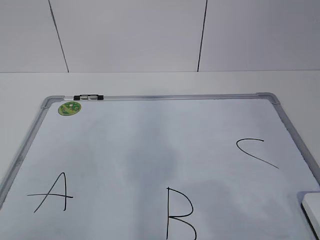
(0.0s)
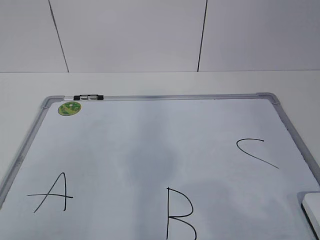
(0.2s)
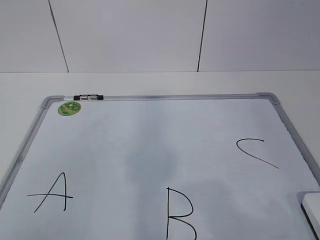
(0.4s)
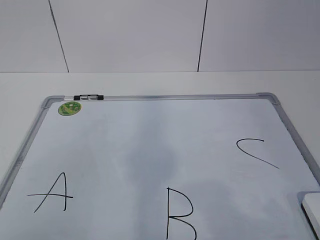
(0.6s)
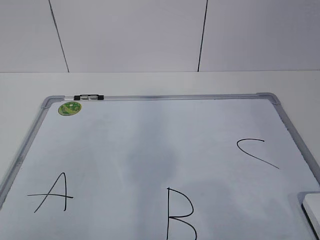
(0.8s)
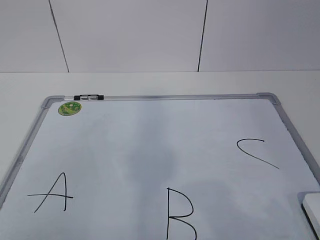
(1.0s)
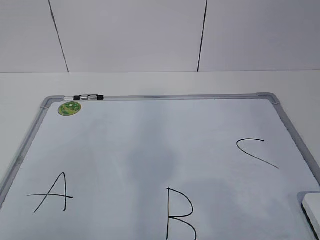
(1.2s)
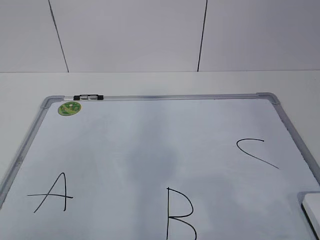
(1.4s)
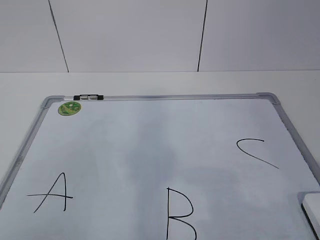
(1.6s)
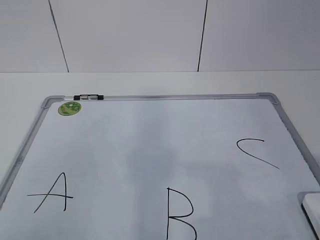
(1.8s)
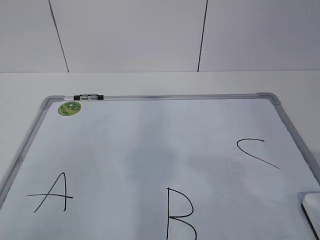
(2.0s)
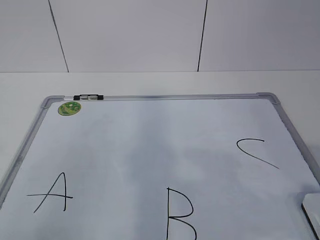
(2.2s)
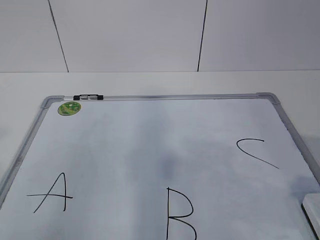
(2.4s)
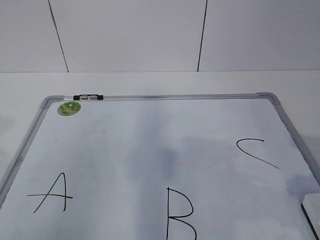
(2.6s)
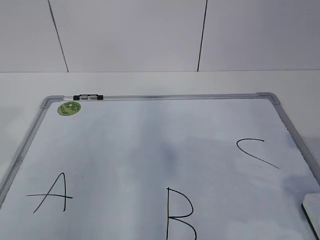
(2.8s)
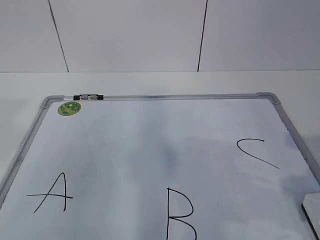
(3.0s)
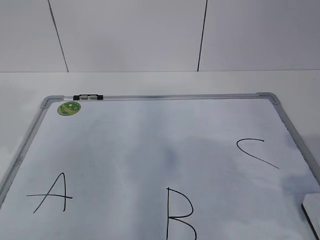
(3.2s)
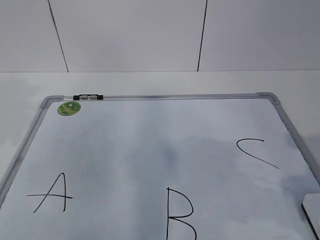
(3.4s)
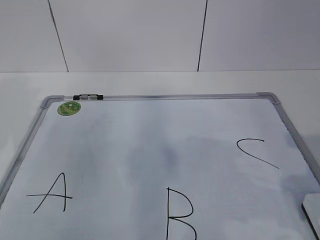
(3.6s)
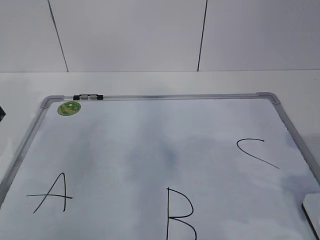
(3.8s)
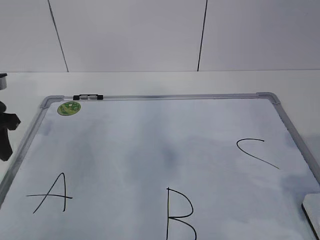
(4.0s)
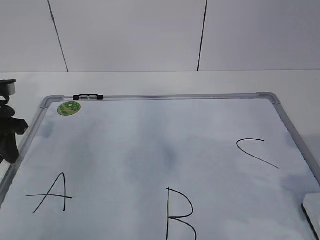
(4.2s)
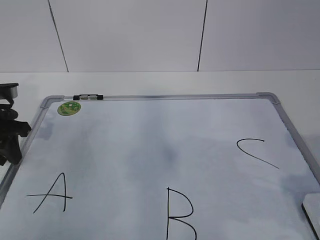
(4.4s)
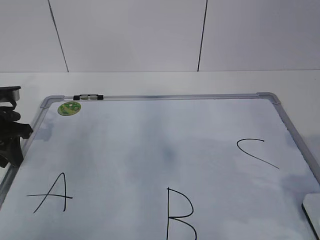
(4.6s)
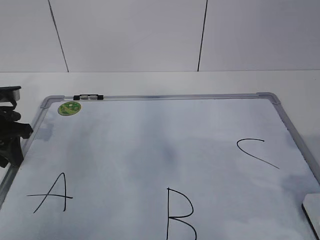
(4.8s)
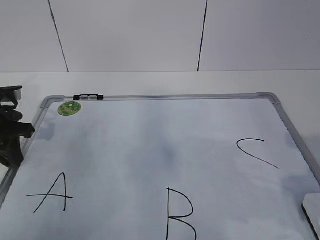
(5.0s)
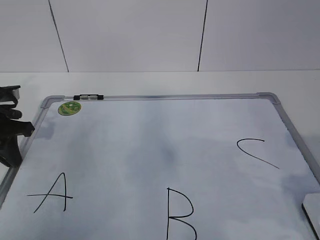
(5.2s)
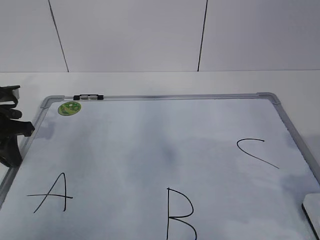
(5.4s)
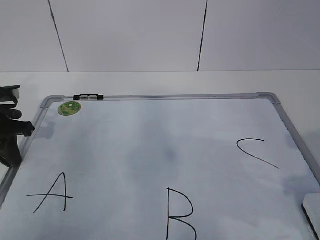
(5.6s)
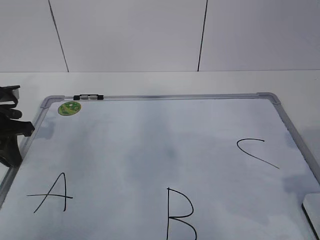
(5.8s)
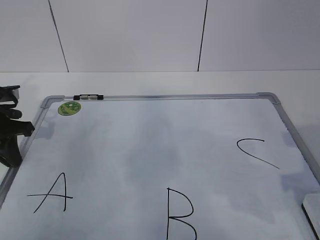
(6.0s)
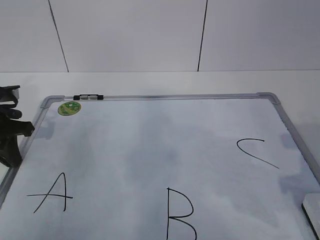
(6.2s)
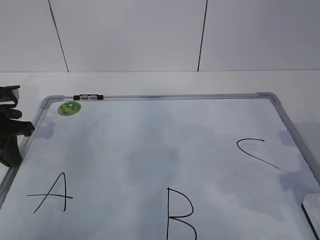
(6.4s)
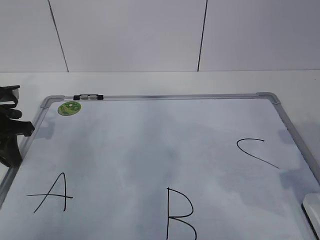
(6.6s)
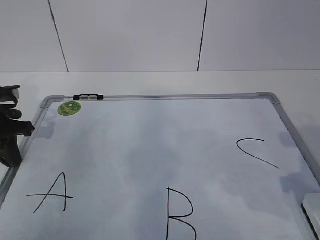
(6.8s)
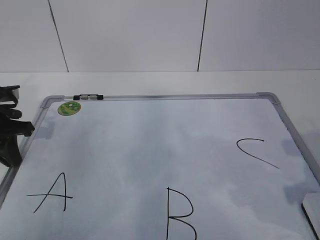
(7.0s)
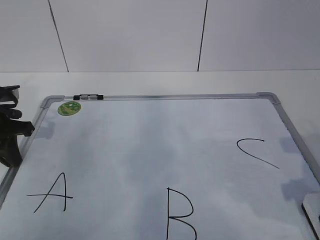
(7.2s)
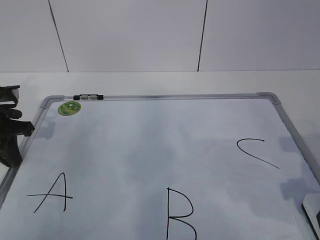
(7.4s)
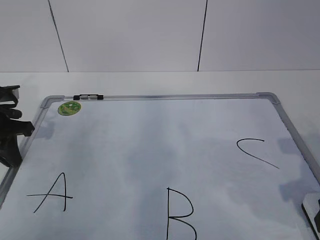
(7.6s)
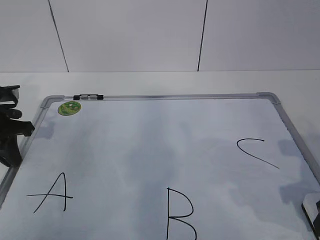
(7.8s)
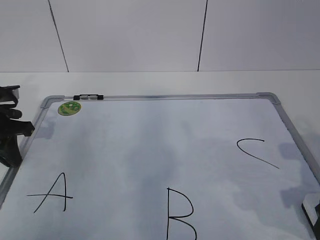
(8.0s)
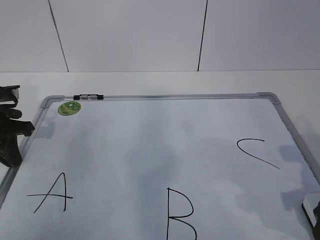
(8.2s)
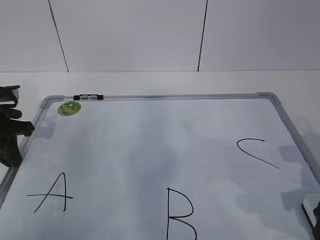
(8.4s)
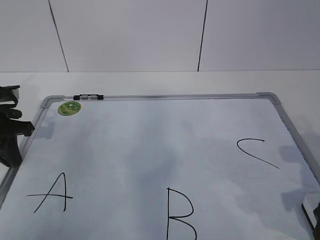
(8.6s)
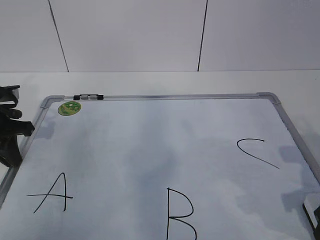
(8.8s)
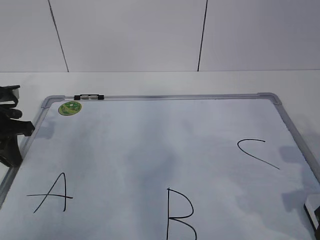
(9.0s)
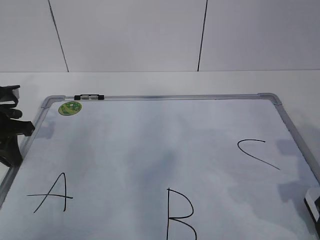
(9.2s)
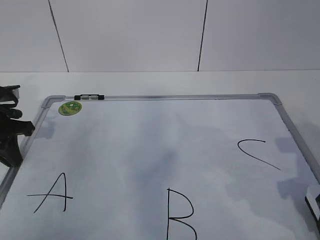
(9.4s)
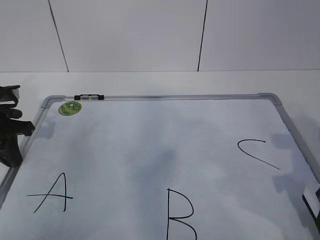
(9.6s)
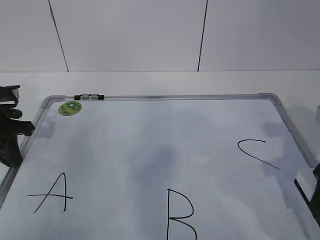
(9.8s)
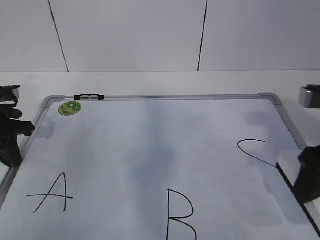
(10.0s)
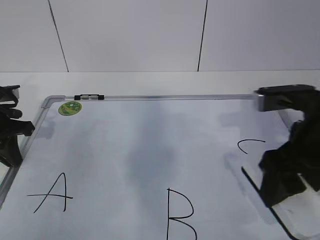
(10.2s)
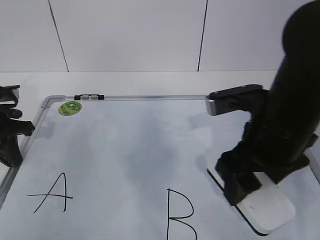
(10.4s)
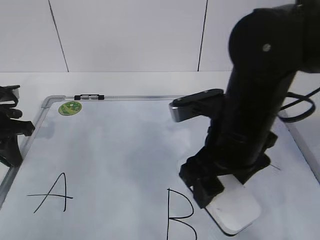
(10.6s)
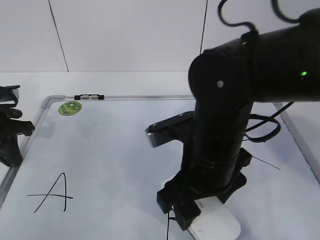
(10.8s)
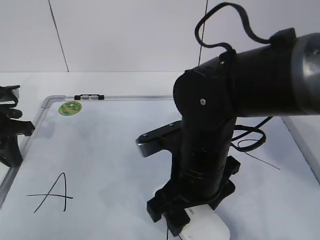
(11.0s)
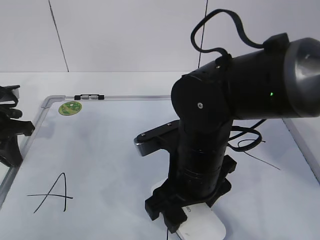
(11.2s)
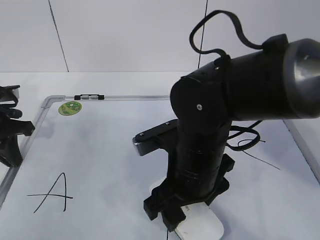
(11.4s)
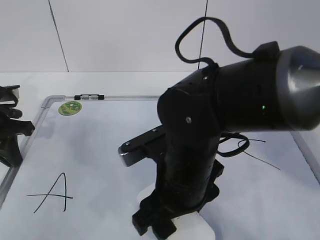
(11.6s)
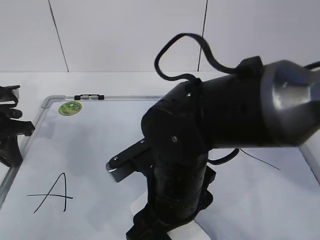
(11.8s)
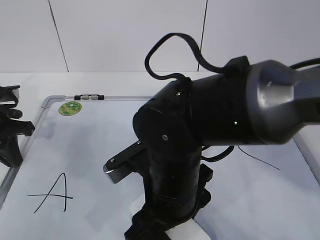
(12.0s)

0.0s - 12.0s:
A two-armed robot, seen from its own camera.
Task of the whole recording: pick up the eraser on the blackboard and erase the letter "B".
Step, 0.0s - 4.2s: Hold the drawing board steady with your left hand.
1.6s - 3.0s: The right gripper heads forward, covering about 10 cm.
3.0s - 4.4s: The left gripper moves forward and downward, roughly 20 cm.
4.4s - 6.0s: The left gripper closes.
9.0s - 10.4s: The right gripper heads to the left, upward and forward, covering roughly 15 cm.
10.4s - 12.0s: The right gripper travels to the left and downward by roughly 15 cm.

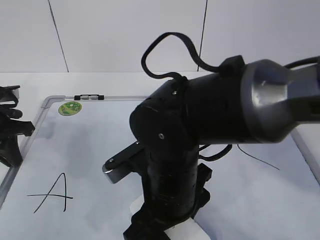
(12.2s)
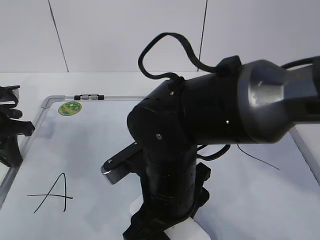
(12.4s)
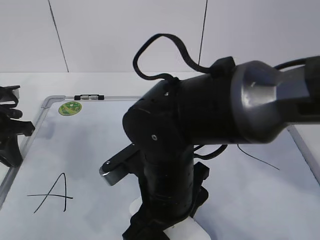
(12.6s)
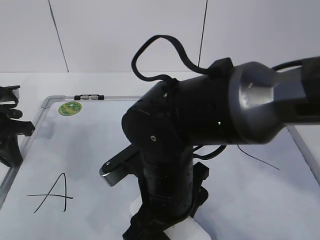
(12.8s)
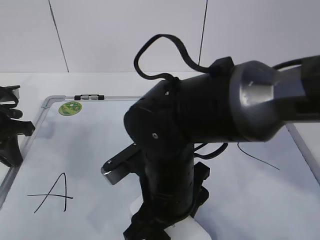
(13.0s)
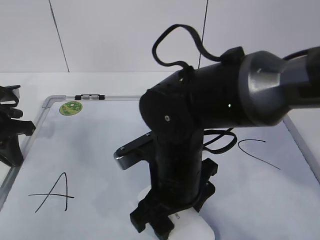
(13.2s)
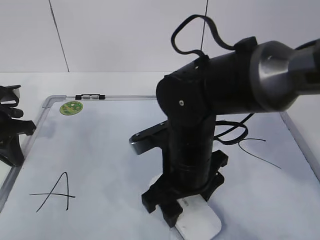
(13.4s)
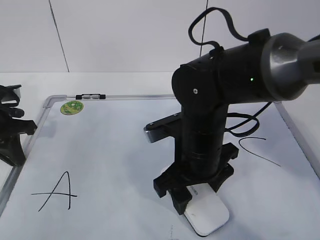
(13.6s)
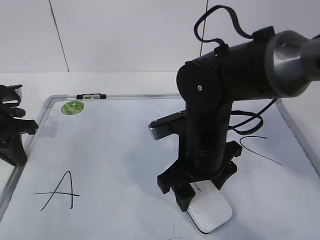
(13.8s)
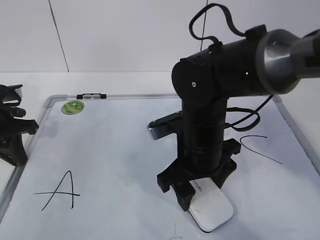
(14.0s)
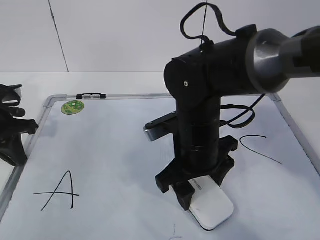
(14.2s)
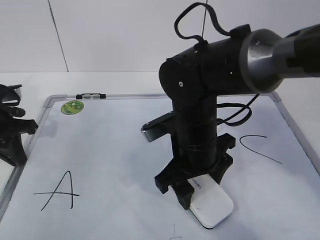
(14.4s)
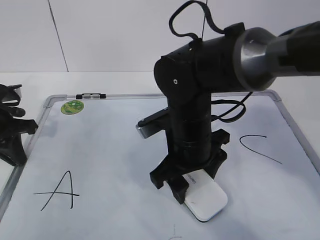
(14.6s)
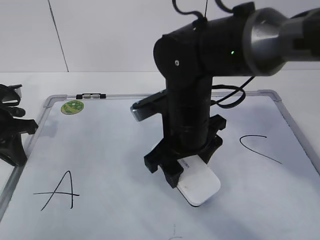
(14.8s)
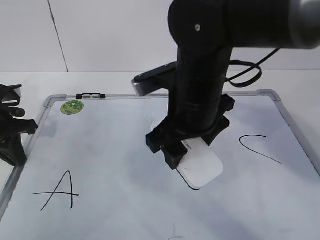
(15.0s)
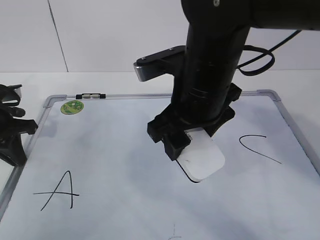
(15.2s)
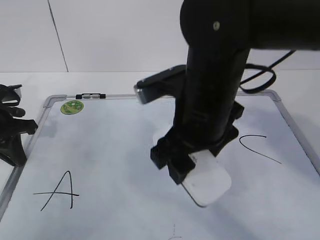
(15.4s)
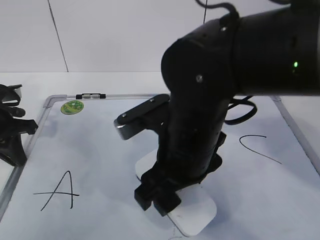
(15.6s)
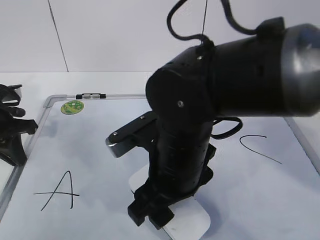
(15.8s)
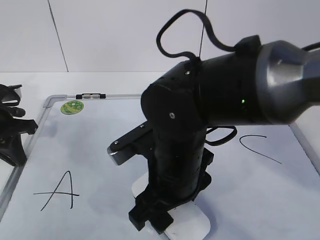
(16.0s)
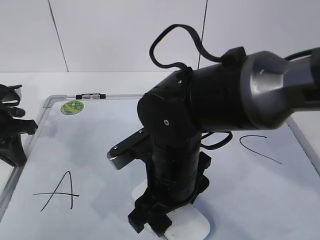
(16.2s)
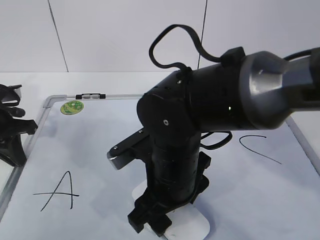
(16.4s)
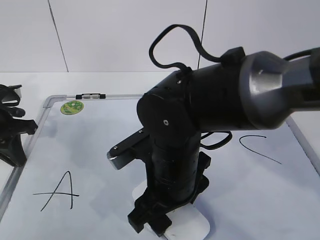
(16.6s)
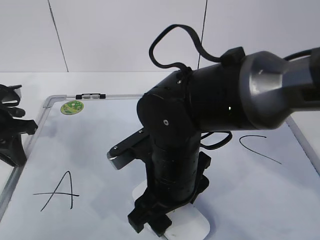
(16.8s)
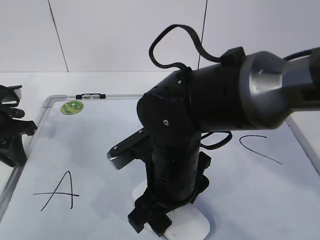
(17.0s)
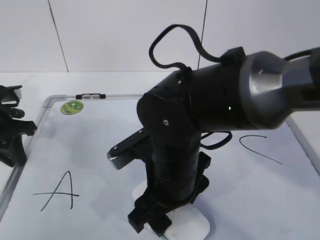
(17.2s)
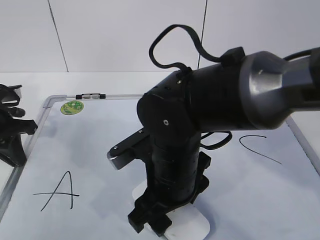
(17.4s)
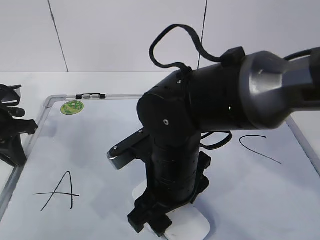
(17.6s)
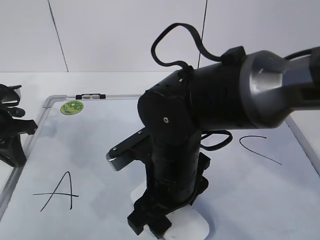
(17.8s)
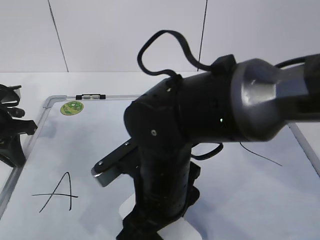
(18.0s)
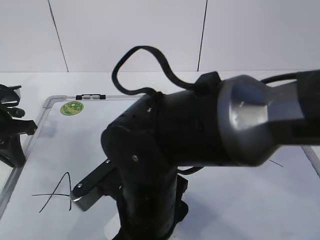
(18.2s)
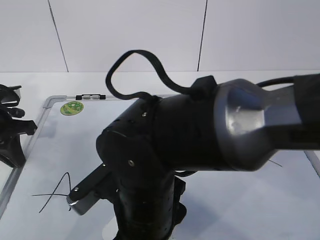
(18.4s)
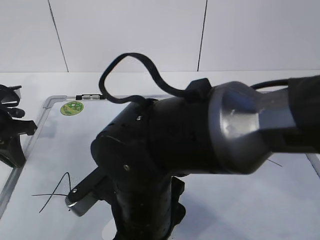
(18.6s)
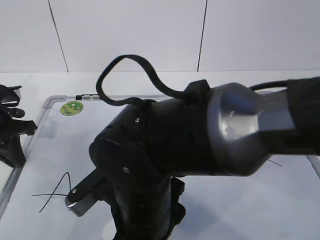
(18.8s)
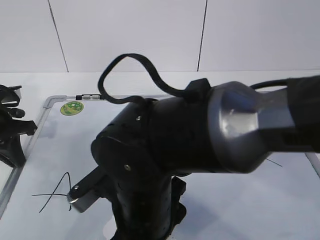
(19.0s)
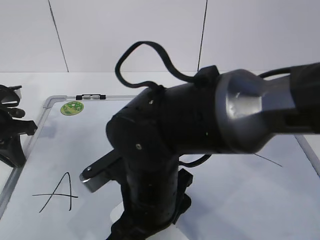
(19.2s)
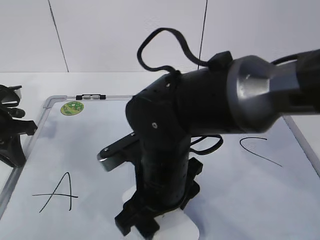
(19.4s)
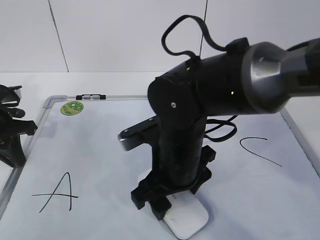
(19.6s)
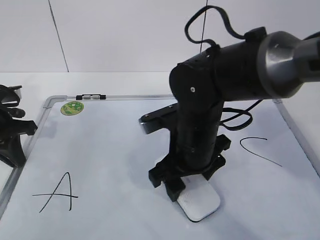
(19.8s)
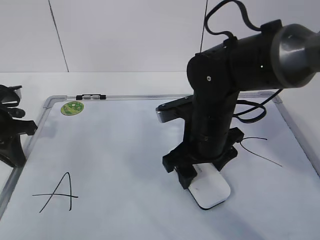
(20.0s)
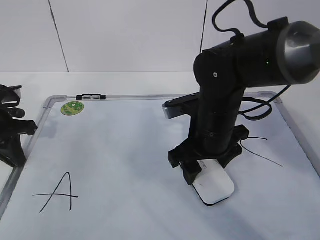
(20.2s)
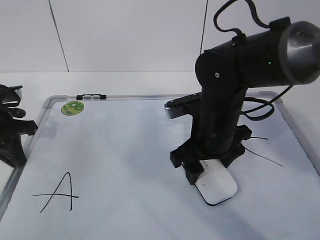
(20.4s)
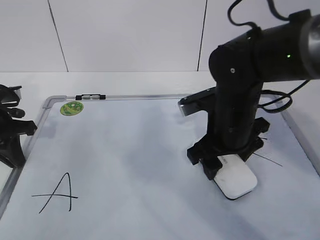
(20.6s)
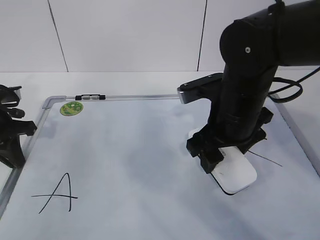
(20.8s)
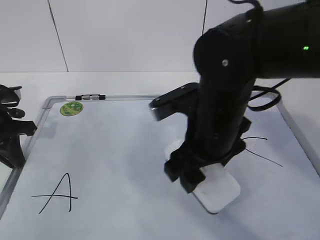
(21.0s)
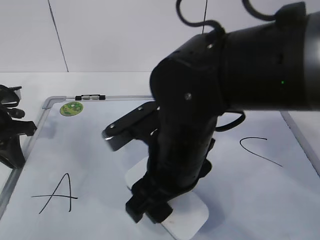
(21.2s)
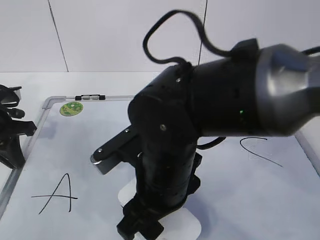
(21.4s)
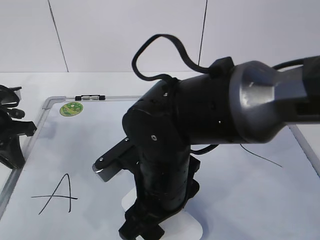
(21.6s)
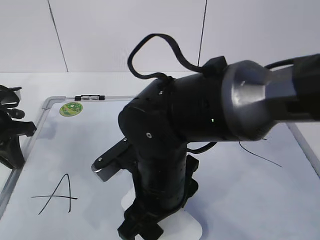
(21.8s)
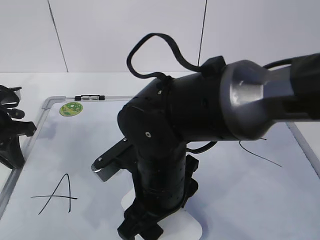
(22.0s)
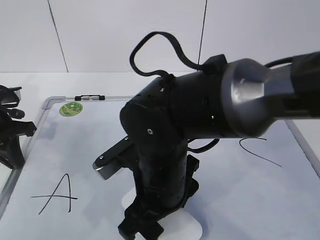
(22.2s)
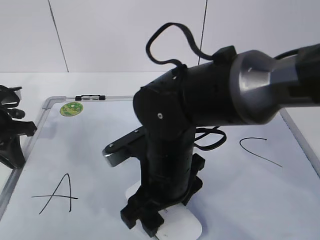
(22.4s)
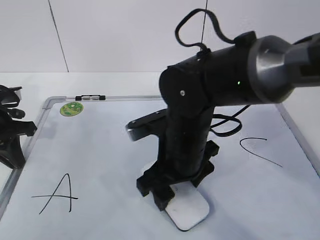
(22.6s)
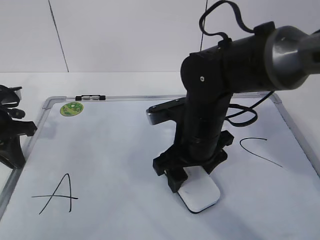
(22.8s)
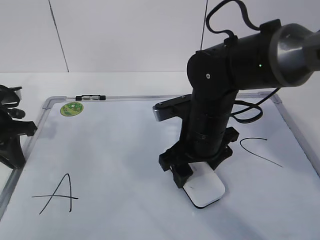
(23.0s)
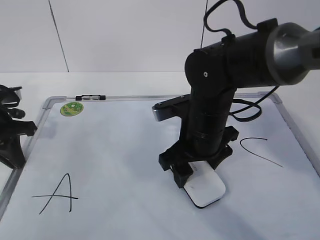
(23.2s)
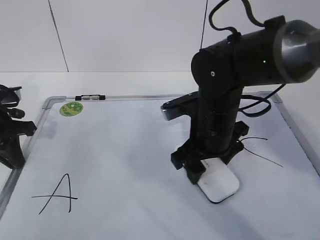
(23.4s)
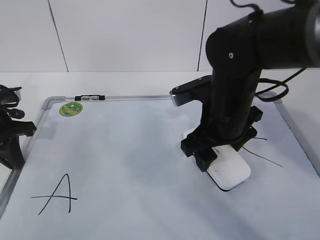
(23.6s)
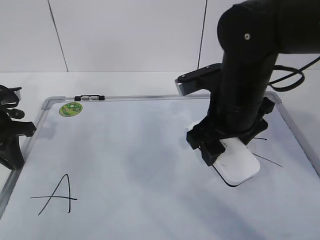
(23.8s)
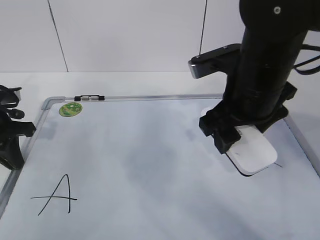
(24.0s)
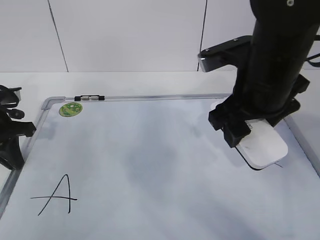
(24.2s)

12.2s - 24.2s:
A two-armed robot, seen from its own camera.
Task of the whole recording: pick up the eraser on the blackboard and erase the letter "B".
Step, 12.2s - 19.2s: Erase the letter B with your right hand.
Step, 19.4s - 23.0s: Put down the eraser with your right hand.
12.2s - 13.8s: The right gripper moves forward and to the right, about 10 cm.
13.8s - 15.2s: The right gripper is displaced upward by approximately 10 cm.
15.2s - 16.6s: The right gripper goes about 10 cm downward.
16.6s - 18.2s: The left gripper opens and closes again; the right gripper moves about 5 cm.
18.2s - 19.8s: The right gripper heads forward and to the right, covering approximately 10 cm.
19.8s - 21.2s: The right gripper shifts some 5 cm upward, and travels to the right and back again, roughly 5 cm each way.
21.2s - 22.6s: The right gripper travels downward by some 5 cm.
22.6s - 24.2s: The right gripper heads upward and to the right, covering approximately 15 cm.
